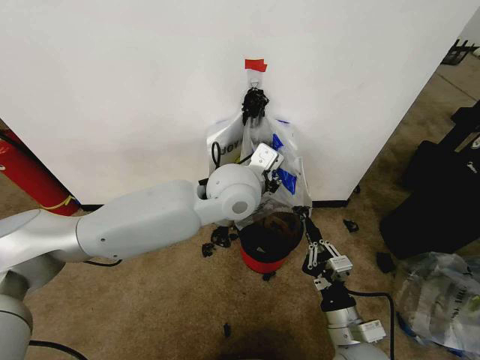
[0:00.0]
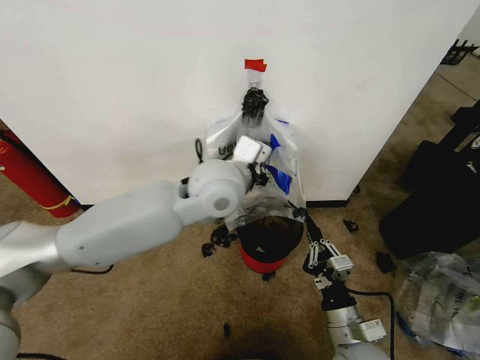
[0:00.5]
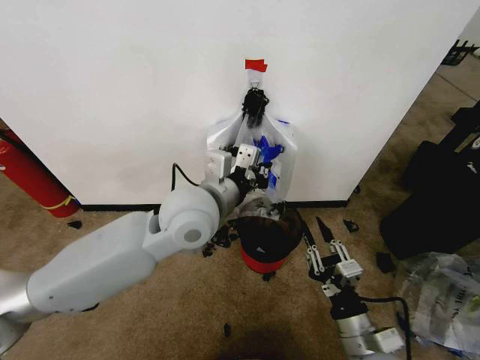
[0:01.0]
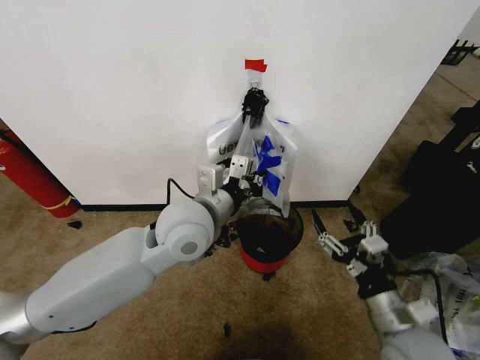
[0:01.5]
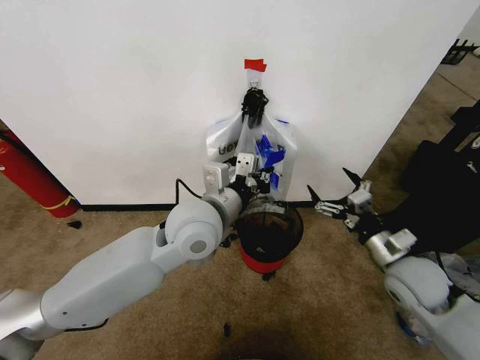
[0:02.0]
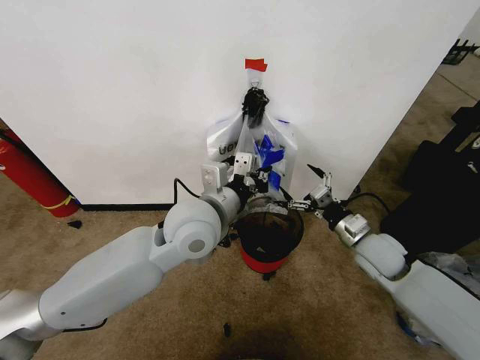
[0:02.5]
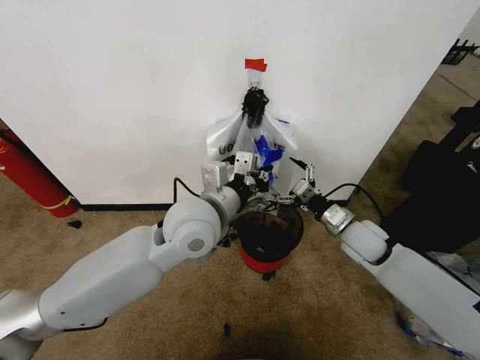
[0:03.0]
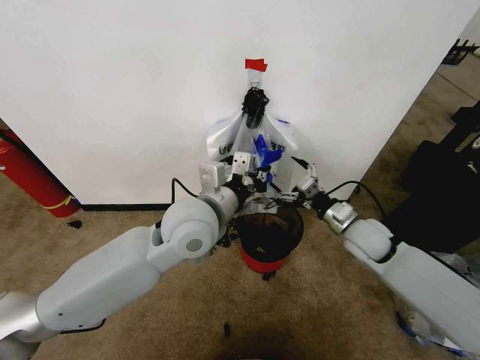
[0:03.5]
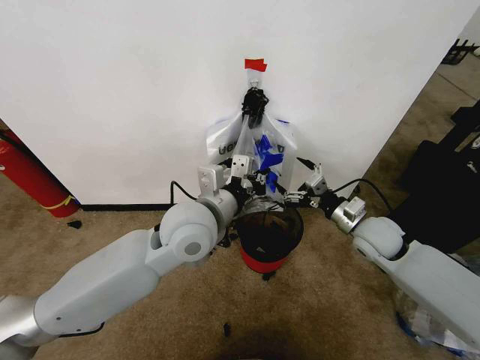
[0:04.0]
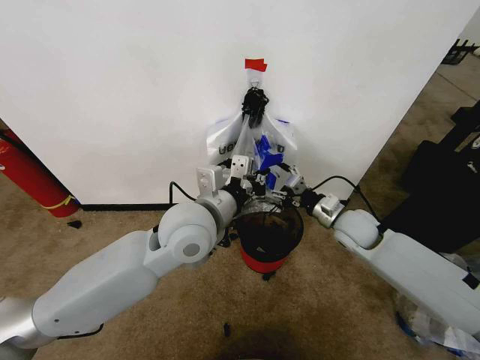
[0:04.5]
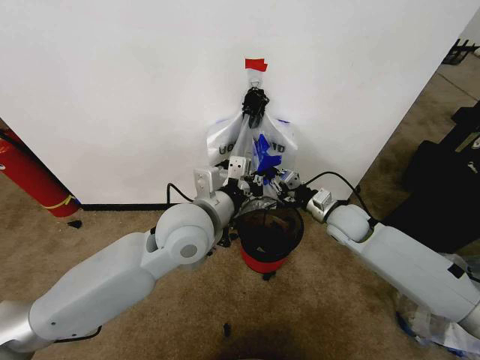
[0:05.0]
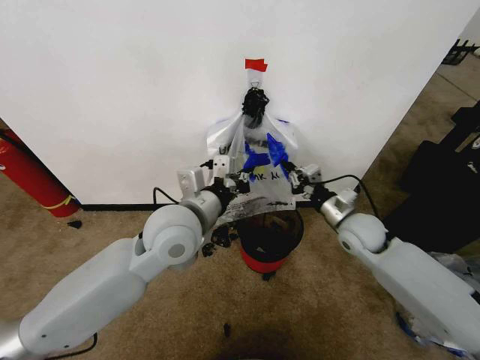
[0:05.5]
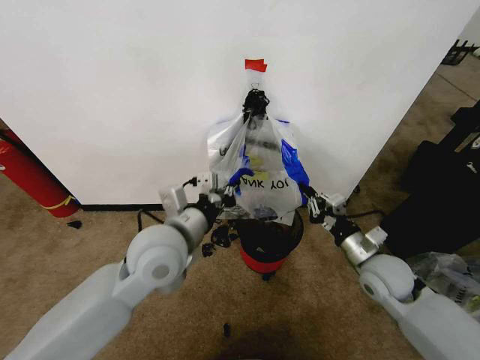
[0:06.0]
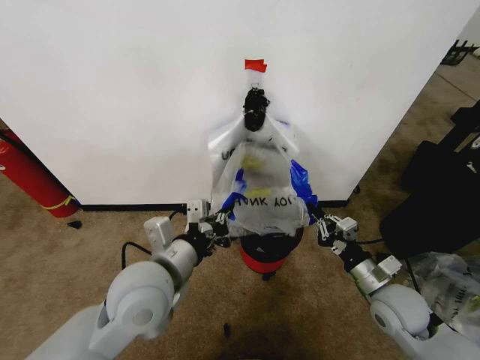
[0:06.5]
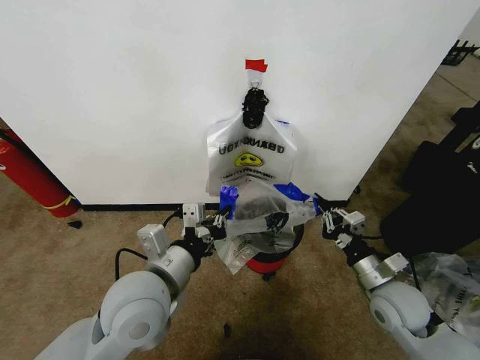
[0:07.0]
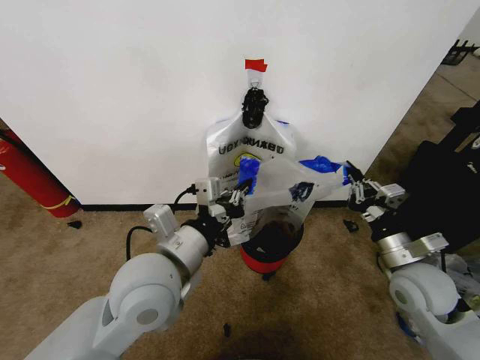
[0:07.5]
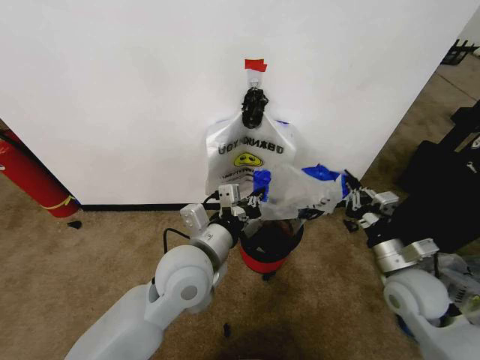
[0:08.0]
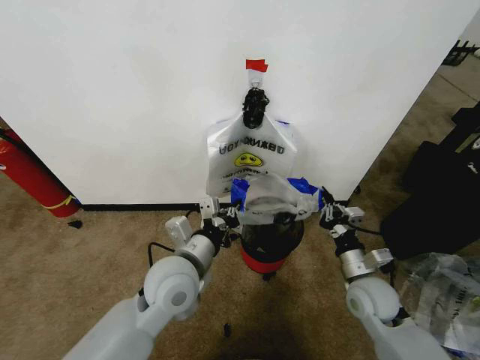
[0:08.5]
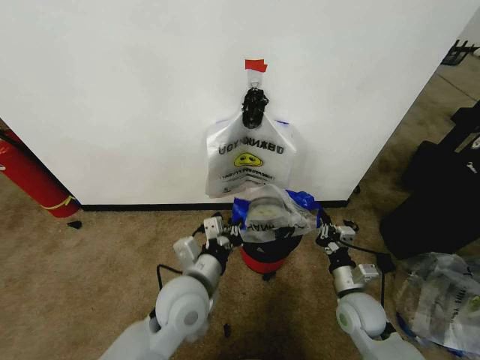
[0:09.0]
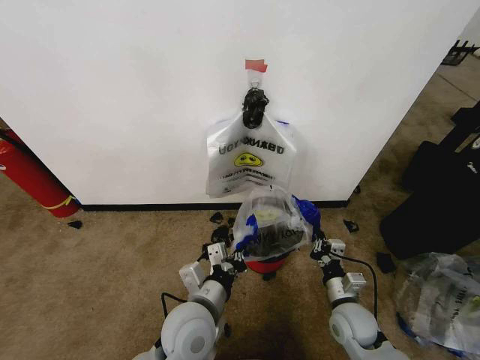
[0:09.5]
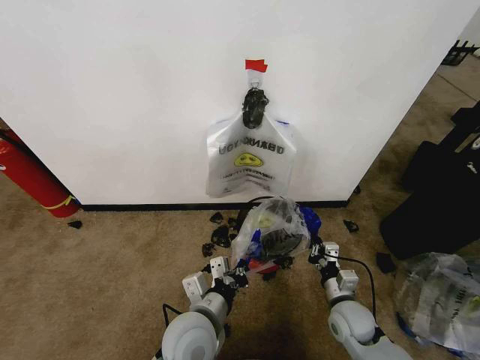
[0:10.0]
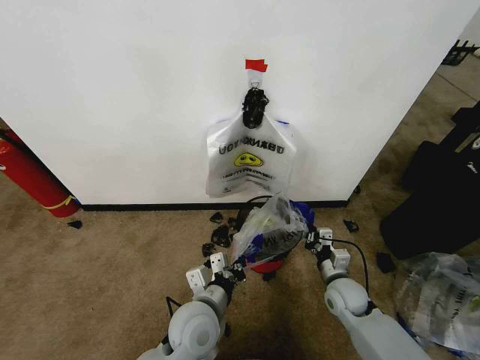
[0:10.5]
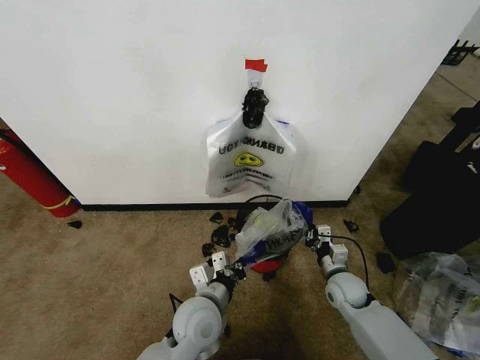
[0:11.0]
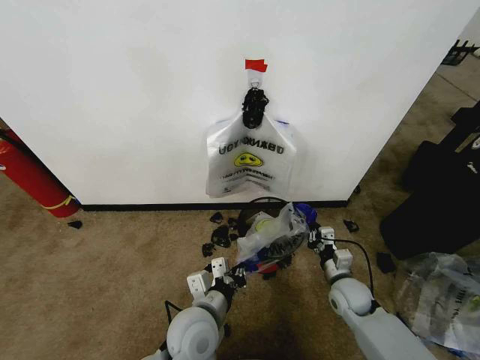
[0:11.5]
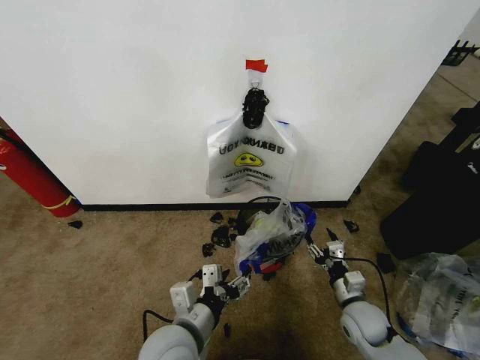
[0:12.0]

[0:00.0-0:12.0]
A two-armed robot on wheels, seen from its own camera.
Task of the whole recording: Pick up the garbage bag from the wall and place it over the trash bin.
0.0 to 2.0 s: The left gripper goes approximately 10 cm to the left and backward, and closes its fingers. Meanwhile the right gripper goes some 20 cm forward, to the right and upward, and opens.
2.0 to 4.0 s: The right gripper goes some 10 cm forward.
4.0 to 6.0 s: The right gripper travels backward by about 5 cm, and closes its fingers. The left gripper shifts by roughly 5 cm.
6.0 to 8.0 s: The left gripper reaches approximately 10 cm backward, then returns. The right gripper changes place by about 5 cm.
8.0 to 10.0 s: The left gripper travels downward and backward by about 15 cm. Meanwhile the right gripper is displaced downward and to the left by roughly 15 cm.
10.0 to 12.0 s: The right gripper moves roughly 10 cm forward and comes back, and opens; the left gripper opens.

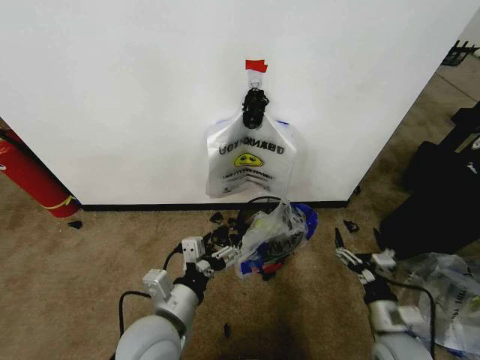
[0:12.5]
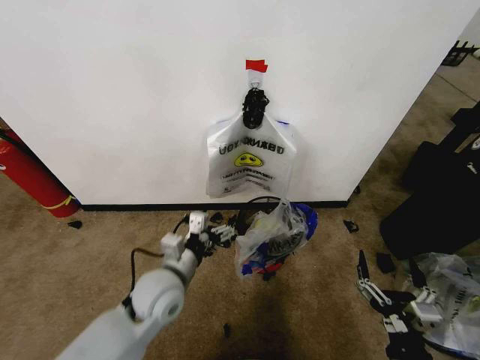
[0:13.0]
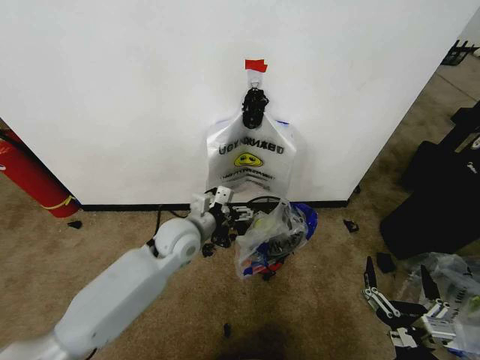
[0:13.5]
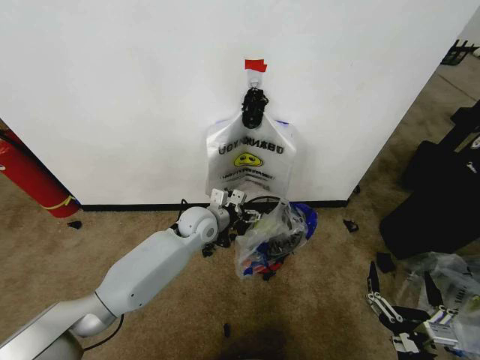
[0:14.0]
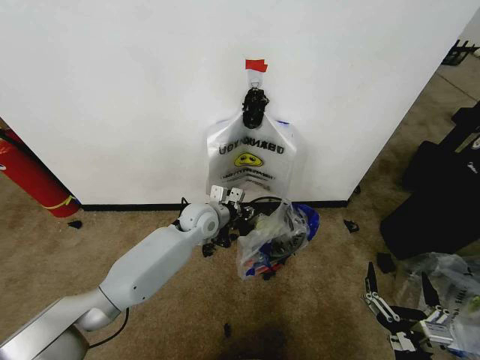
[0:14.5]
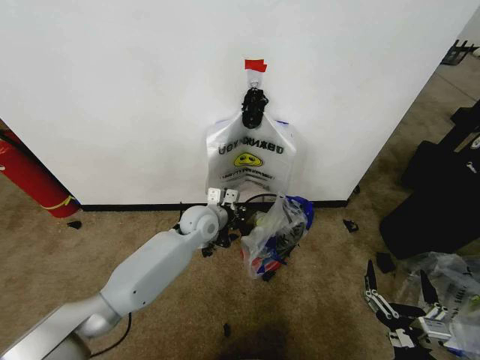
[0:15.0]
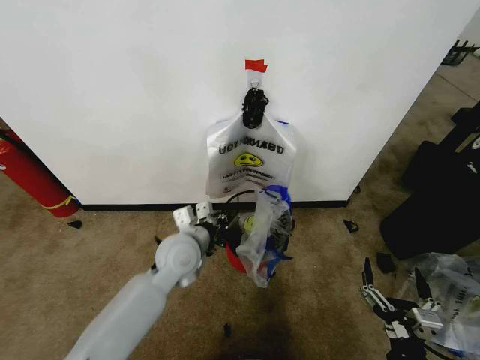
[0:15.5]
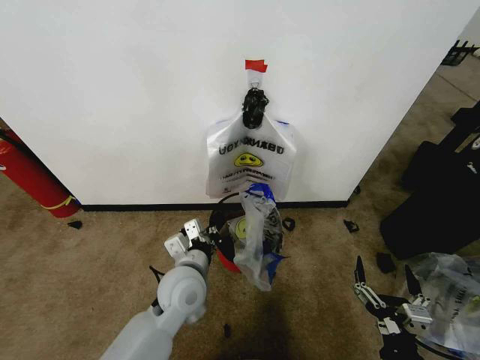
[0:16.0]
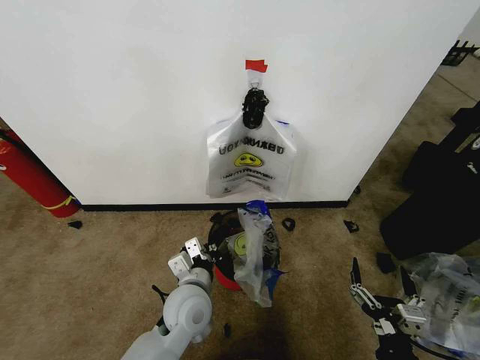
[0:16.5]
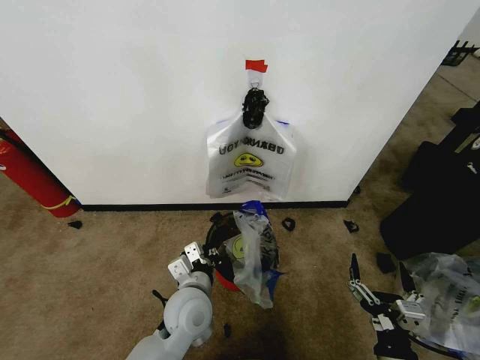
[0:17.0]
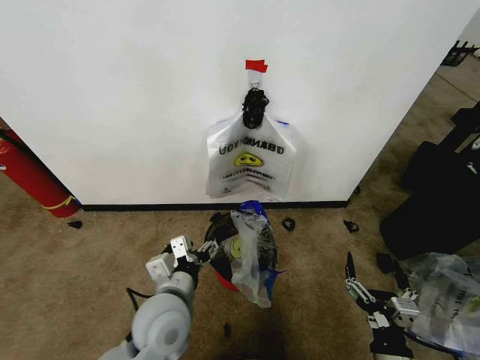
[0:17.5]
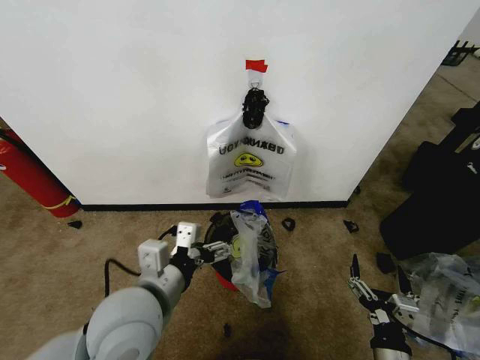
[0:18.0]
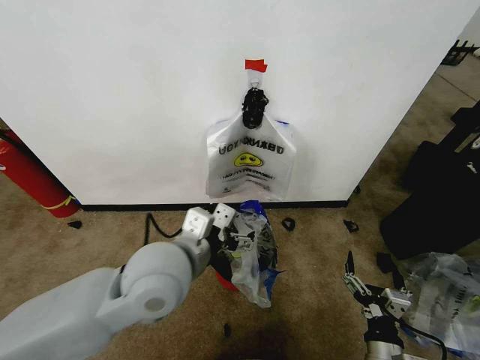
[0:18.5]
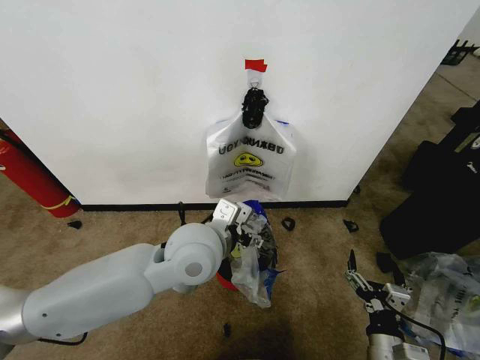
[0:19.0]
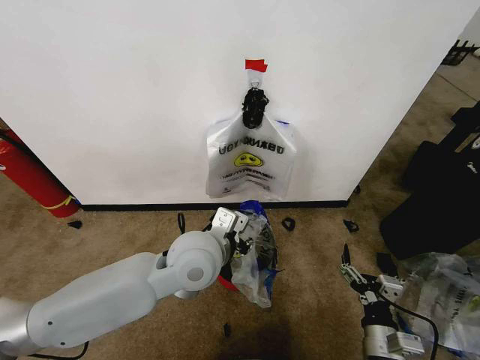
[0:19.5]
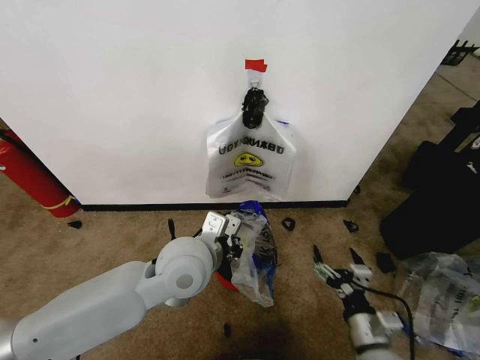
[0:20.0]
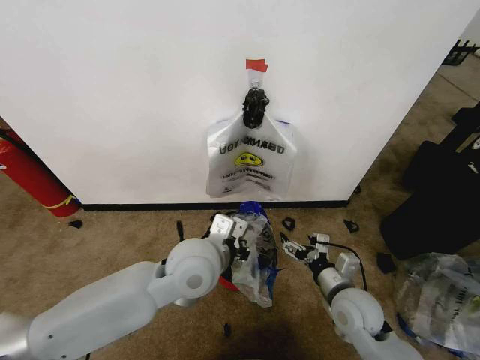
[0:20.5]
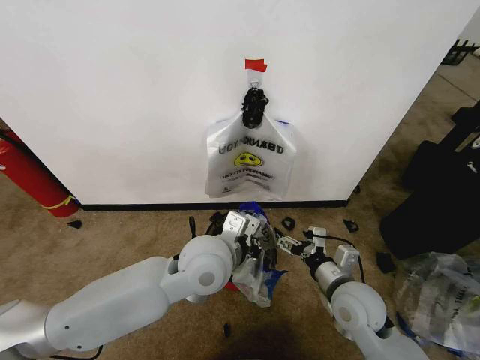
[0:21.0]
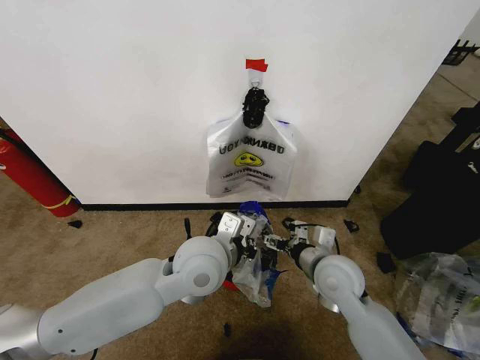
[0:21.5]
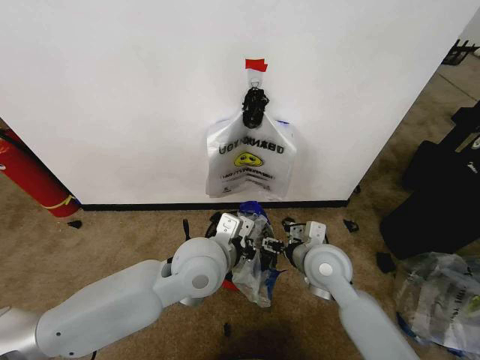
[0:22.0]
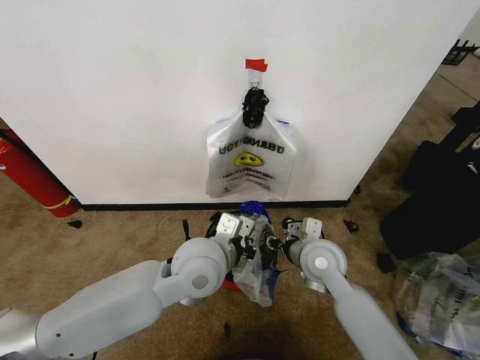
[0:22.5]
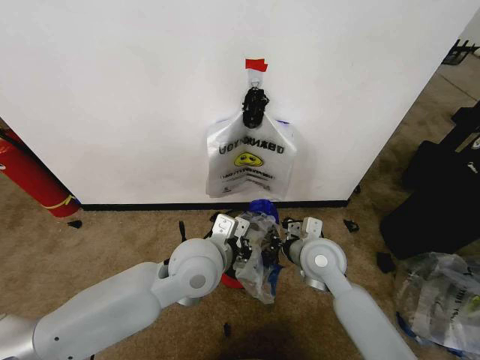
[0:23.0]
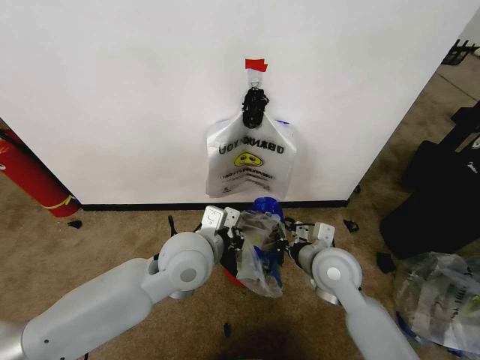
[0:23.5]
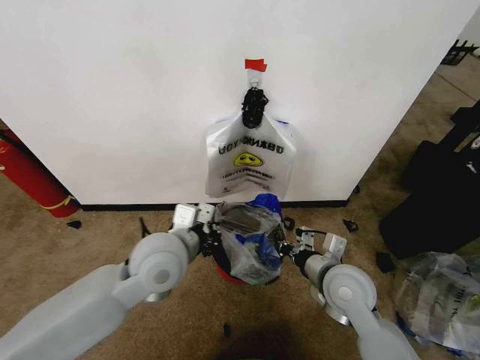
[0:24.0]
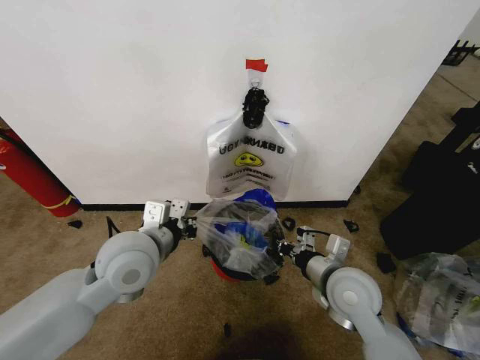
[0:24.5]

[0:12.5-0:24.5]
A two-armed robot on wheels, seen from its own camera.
Task of the whole recording: Pick up the garbage bag from the wall and place it over the trash bin.
12.5 to 14.5 s: The right gripper goes approximately 10 cm backward; the left gripper travels forward by some 30 cm, and closes.
14.5 to 16.5 s: The left gripper moves backward, approximately 20 cm.
16.5 to 18.5 s: The left gripper goes some 20 cm upward, and opens.
18.5 to 20.5 s: The left gripper ends up about 5 cm from where it was, and closes its fingers. Meanwhile the right gripper heads forward, covering about 15 cm.
20.5 to 22.5 s: The right gripper is displaced forward, upward and to the left by about 15 cm, and closes its fingers.
22.5 to 24.5 s: The right gripper goes some 5 cm backward, and closes its fingers. The left gripper moves to the left, some 10 cm.

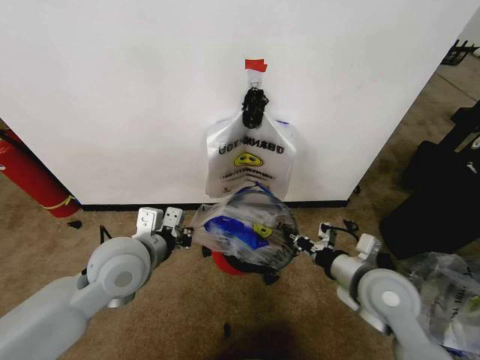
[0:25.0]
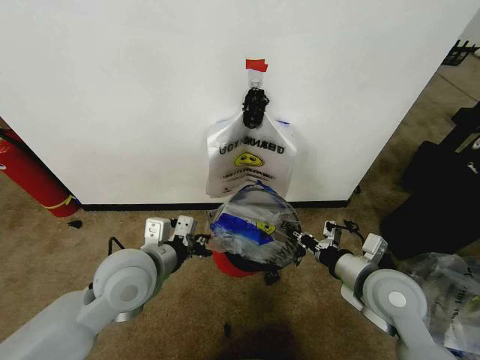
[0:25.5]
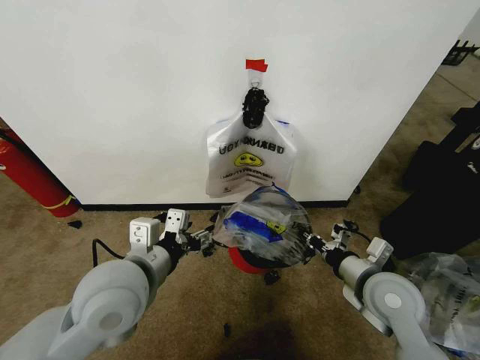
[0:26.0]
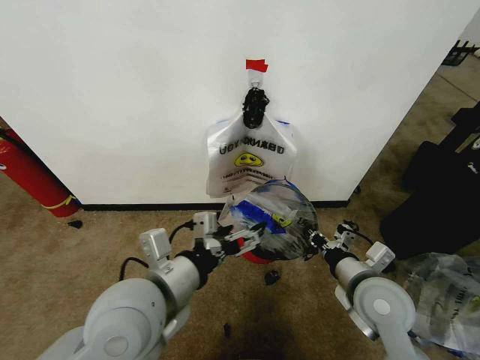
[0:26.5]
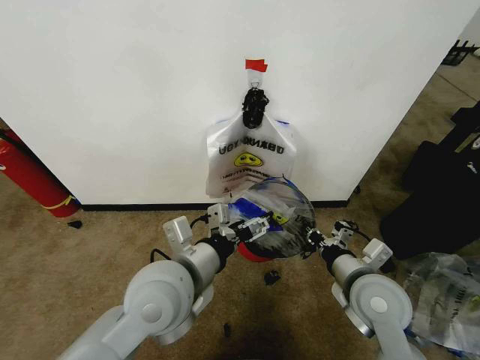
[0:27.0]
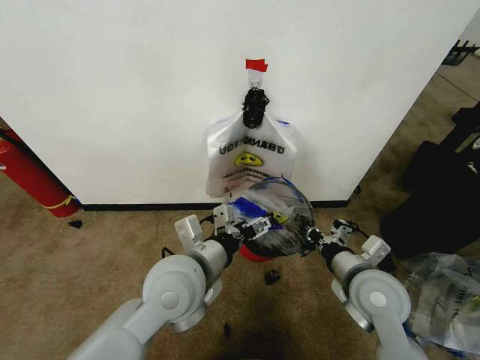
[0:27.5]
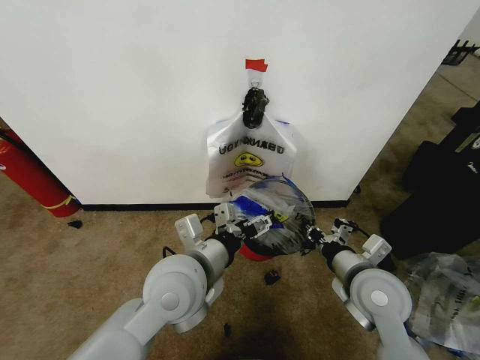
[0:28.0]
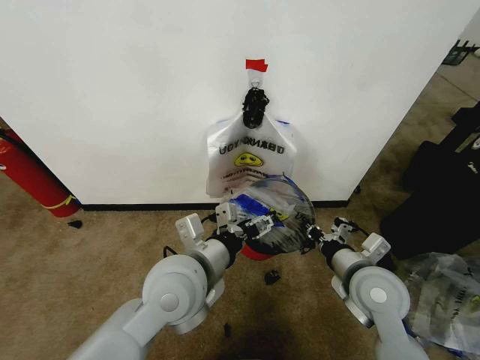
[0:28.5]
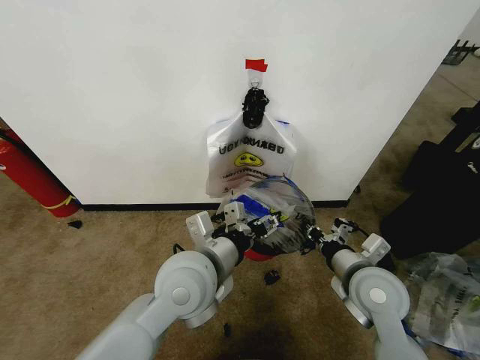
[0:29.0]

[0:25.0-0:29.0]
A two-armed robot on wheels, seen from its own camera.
Task of the whole recording: Pick up the garbage bag from the wall and place it over the trash bin.
25.0 to 27.0 s: The left gripper travels to the right and backward by approximately 10 cm, and opens up.
27.0 to 29.0 s: There are only small adjustments of the grippers.
